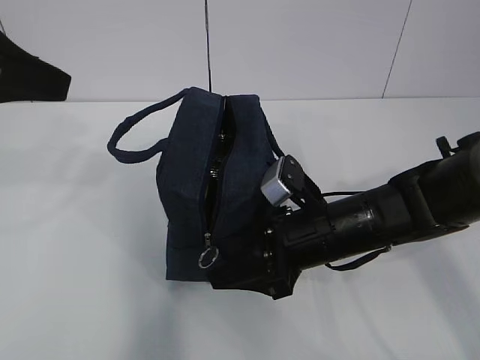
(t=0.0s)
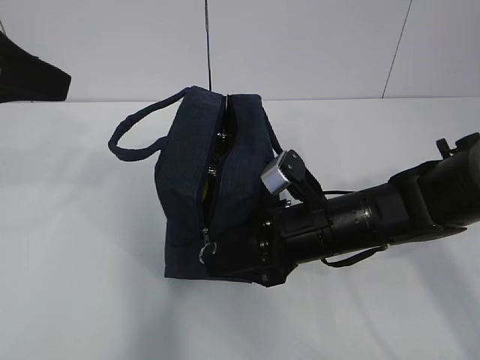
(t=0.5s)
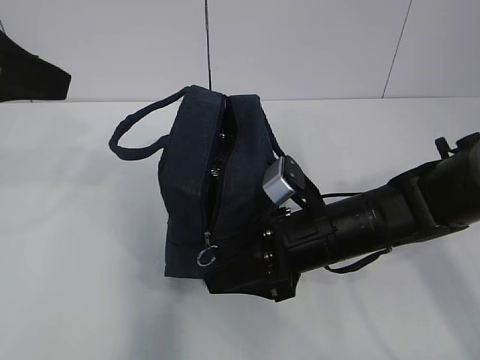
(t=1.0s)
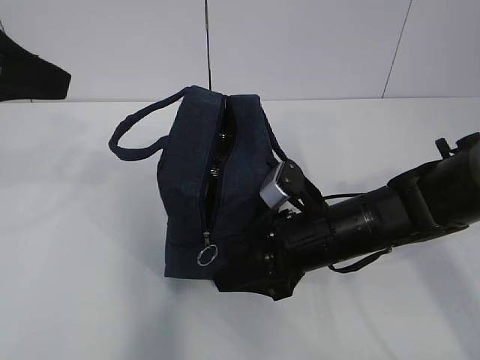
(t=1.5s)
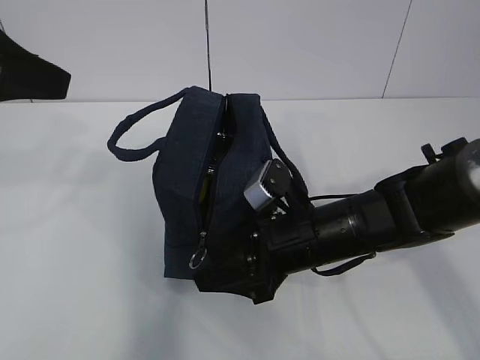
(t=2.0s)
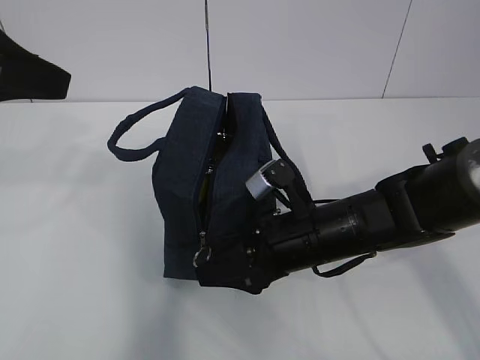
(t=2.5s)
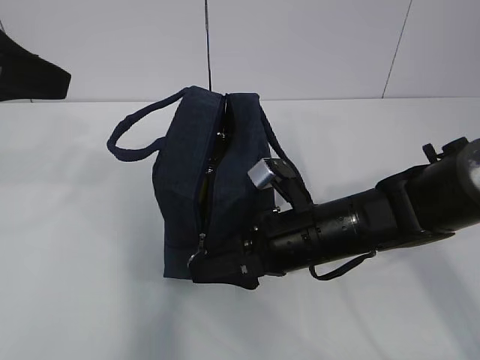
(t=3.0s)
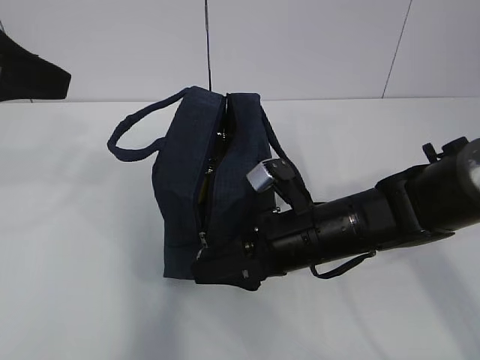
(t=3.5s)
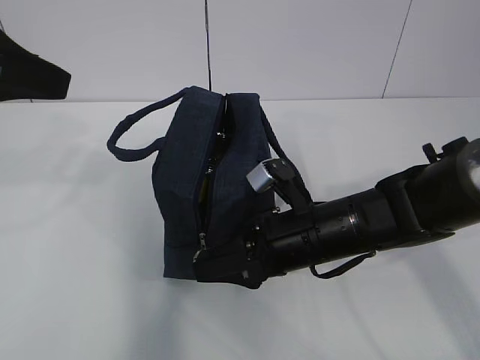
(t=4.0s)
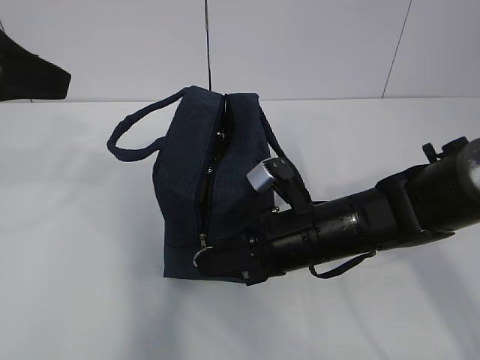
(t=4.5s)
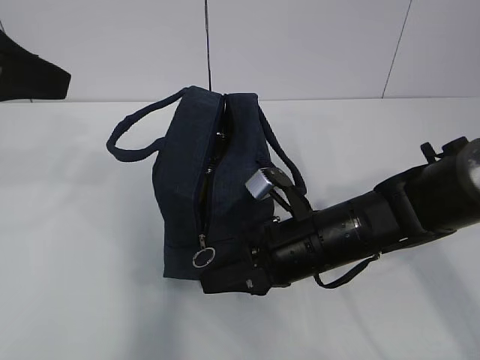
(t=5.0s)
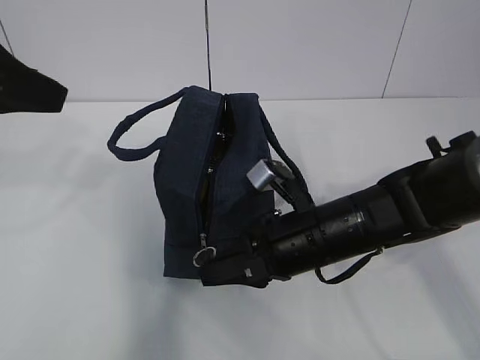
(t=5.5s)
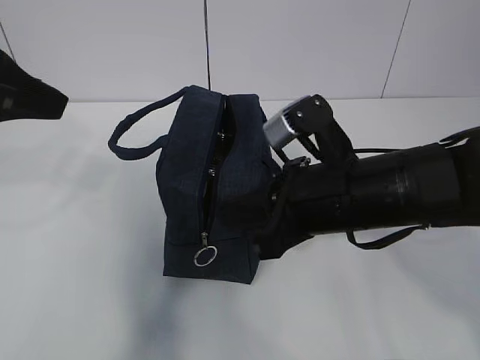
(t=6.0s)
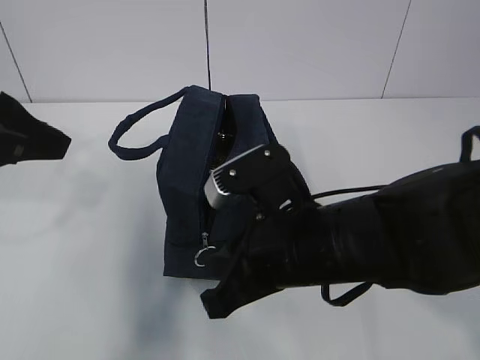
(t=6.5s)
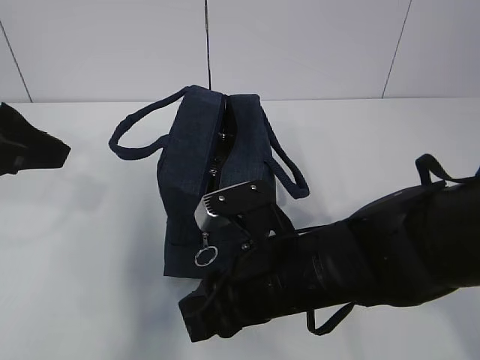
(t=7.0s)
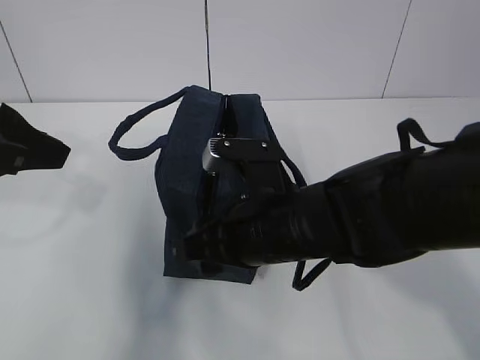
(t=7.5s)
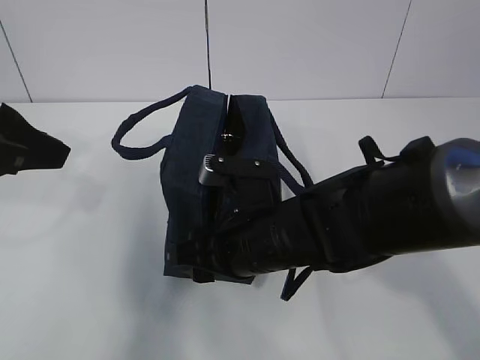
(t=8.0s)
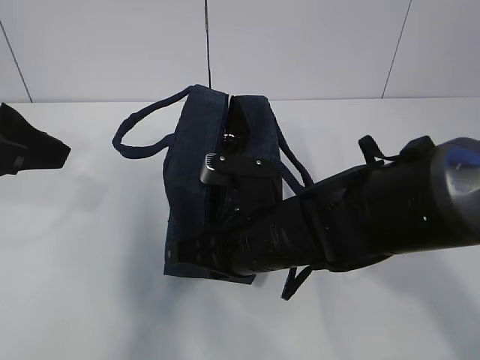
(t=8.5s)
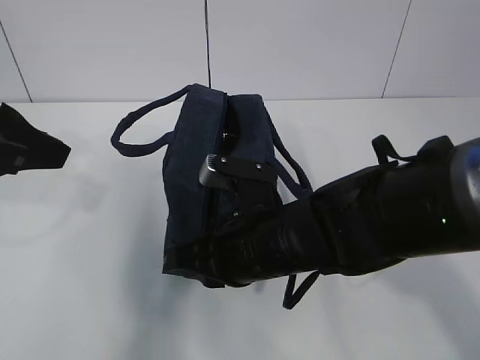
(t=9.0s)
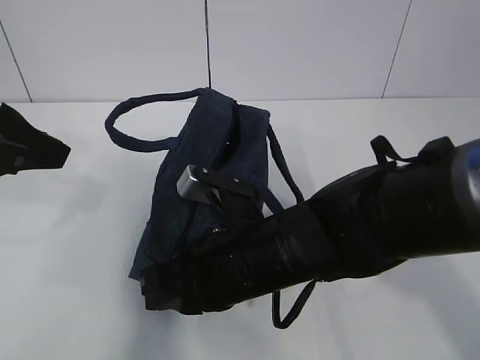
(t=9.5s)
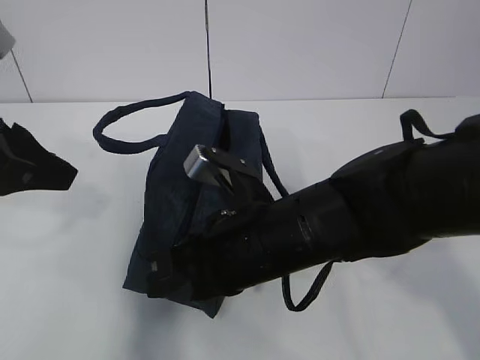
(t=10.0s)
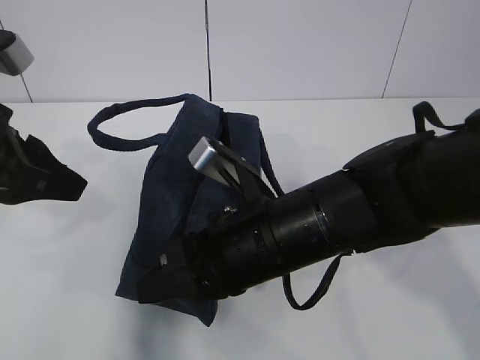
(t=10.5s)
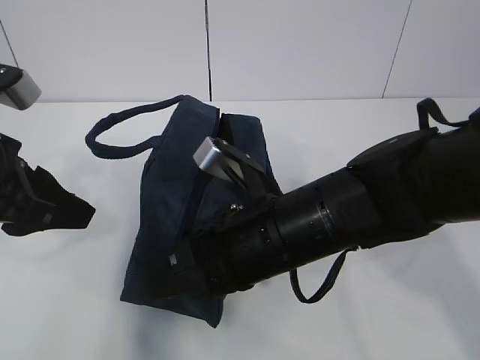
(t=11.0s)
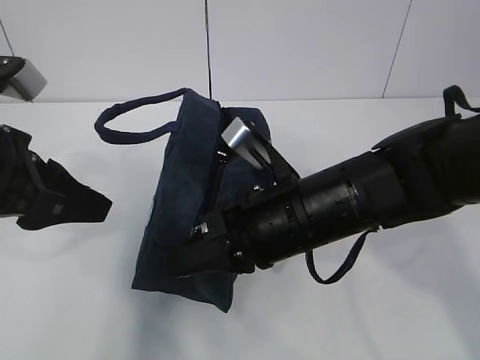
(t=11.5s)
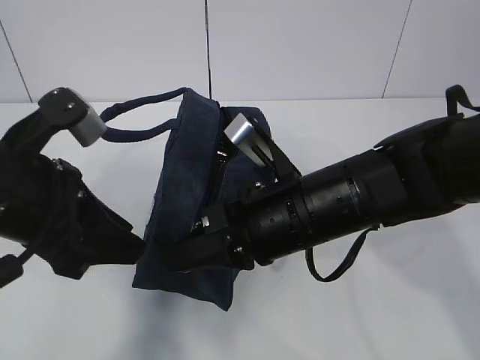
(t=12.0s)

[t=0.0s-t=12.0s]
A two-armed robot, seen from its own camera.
t=0.0s to t=4.0s: The grippers make only small movements.
t=4.0s to t=6.0s: The right gripper goes about 10 cm upward, and closes.
t=6.0s to t=8.0s: The right gripper goes roughly 10 cm to the left and downward, and opens its fingers.
t=8.0s to t=10.0s: The right gripper closes up.
t=10.0s to t=12.0s: The left gripper heads downward, covering approximately 5 cm.

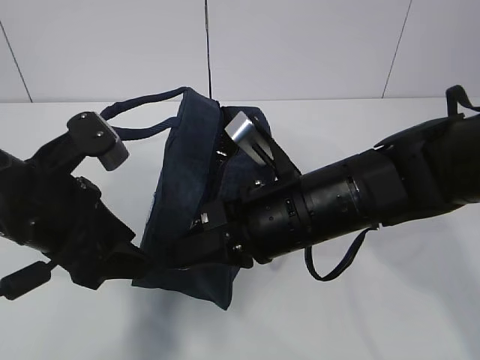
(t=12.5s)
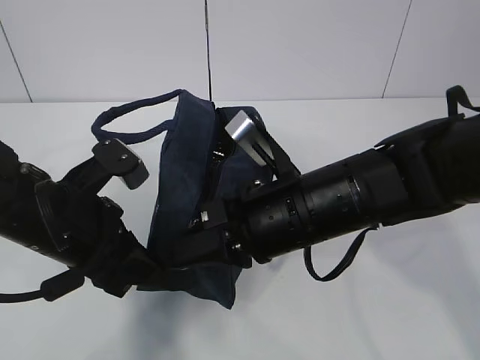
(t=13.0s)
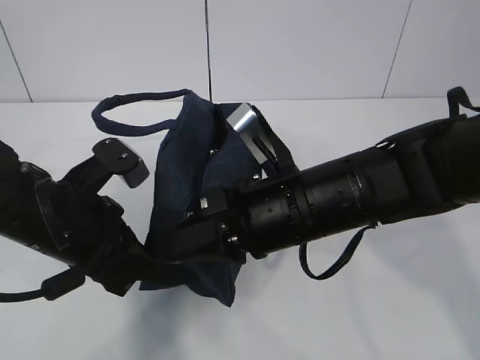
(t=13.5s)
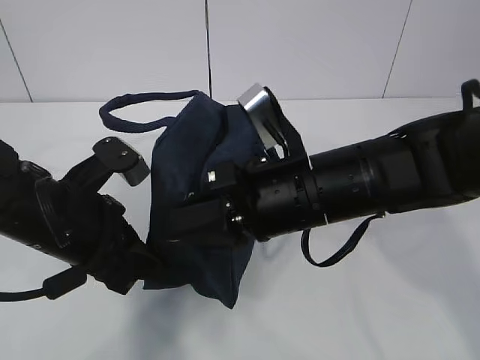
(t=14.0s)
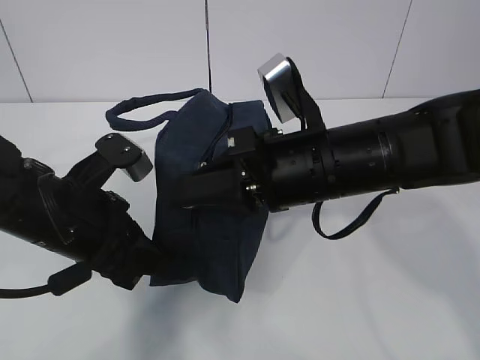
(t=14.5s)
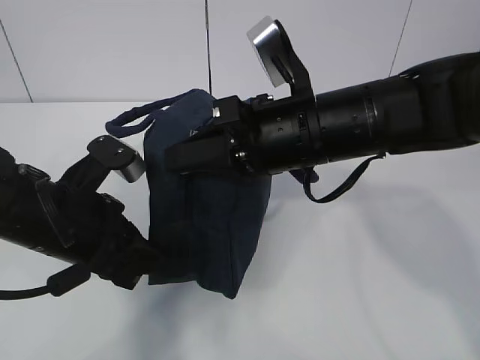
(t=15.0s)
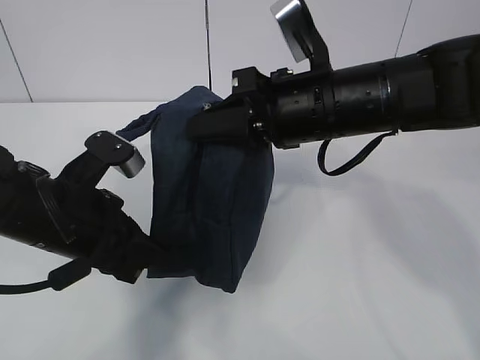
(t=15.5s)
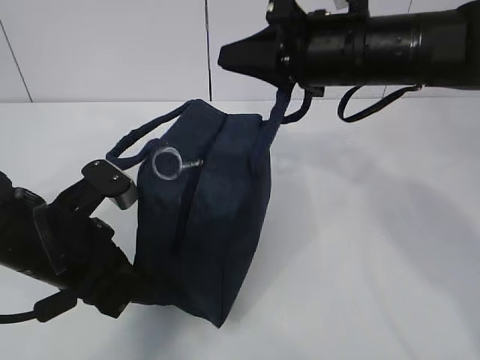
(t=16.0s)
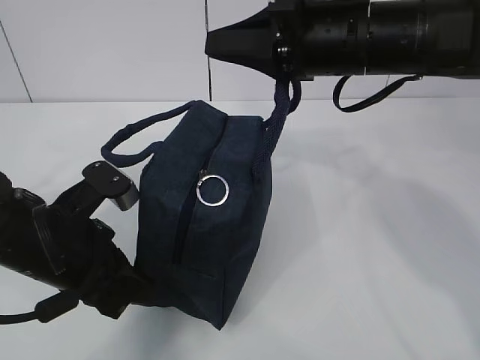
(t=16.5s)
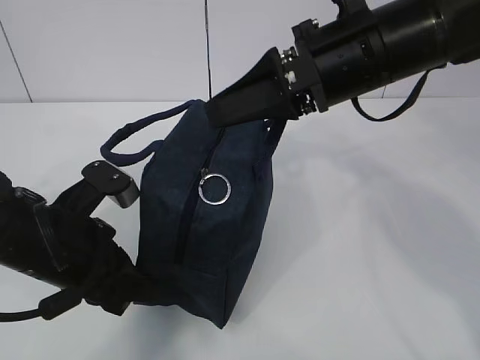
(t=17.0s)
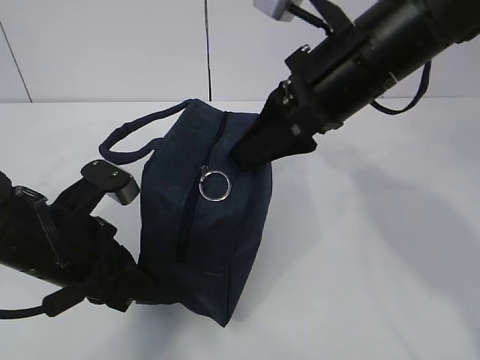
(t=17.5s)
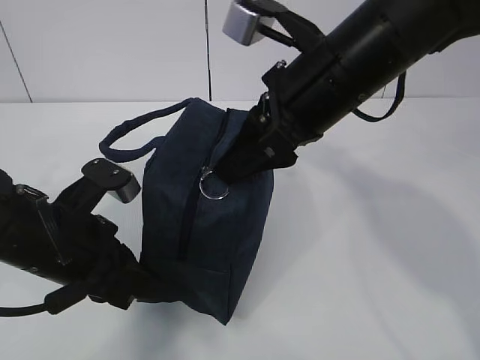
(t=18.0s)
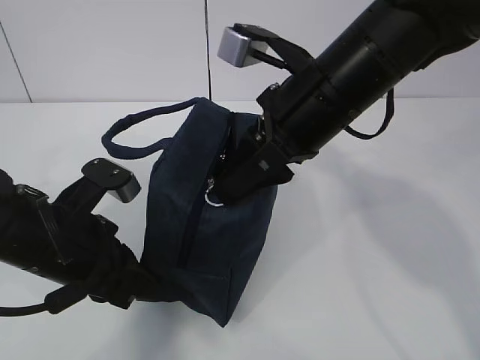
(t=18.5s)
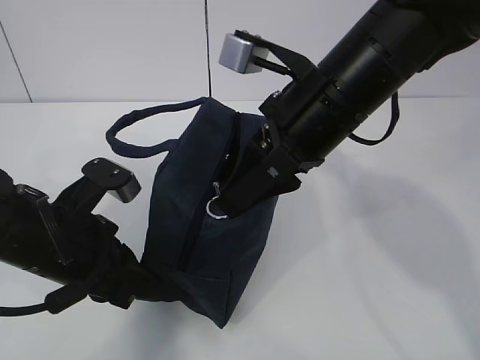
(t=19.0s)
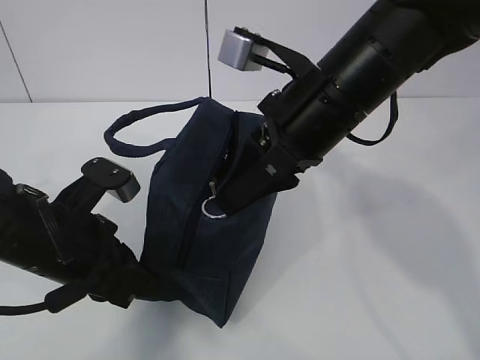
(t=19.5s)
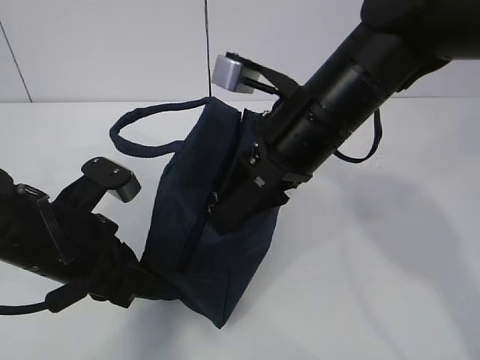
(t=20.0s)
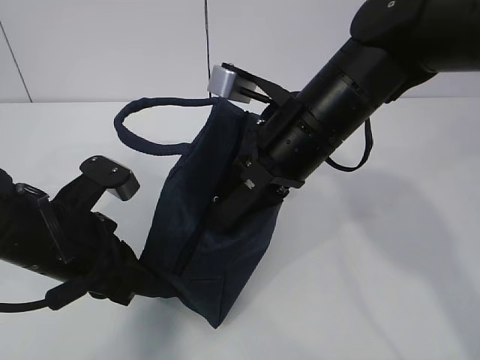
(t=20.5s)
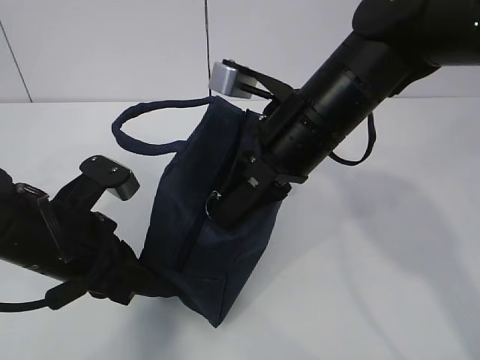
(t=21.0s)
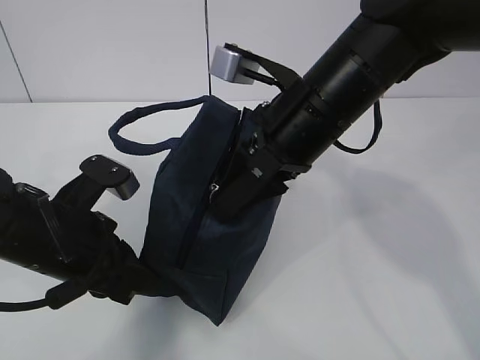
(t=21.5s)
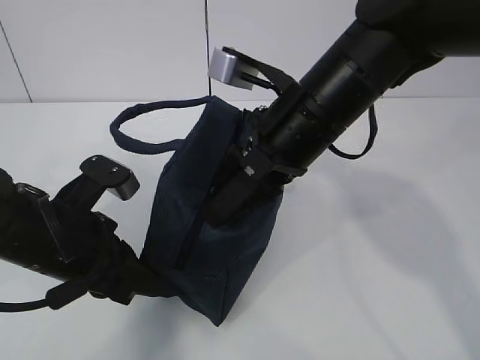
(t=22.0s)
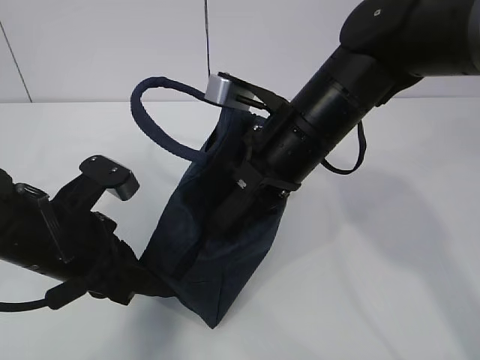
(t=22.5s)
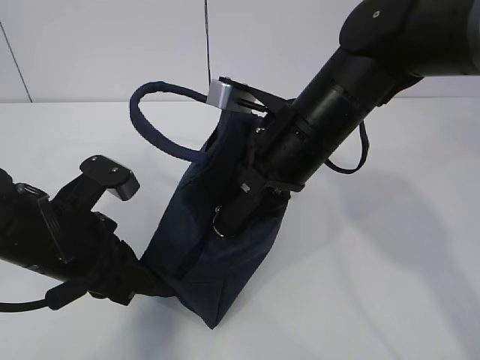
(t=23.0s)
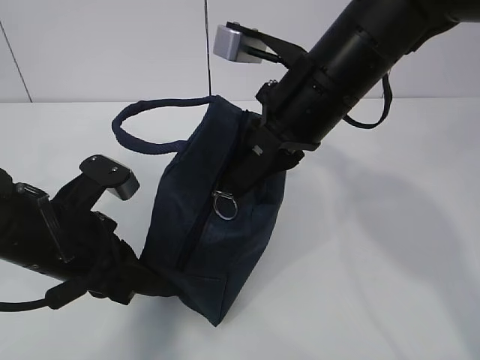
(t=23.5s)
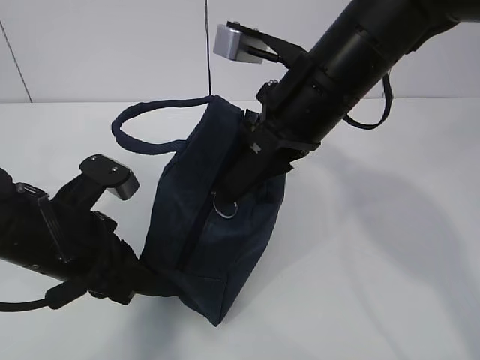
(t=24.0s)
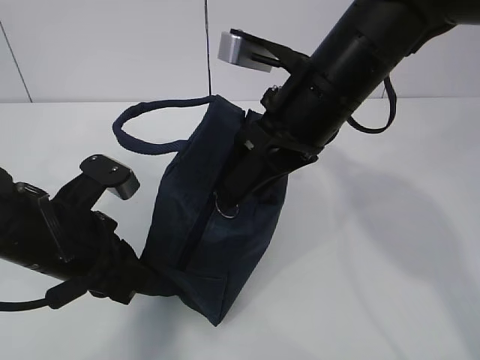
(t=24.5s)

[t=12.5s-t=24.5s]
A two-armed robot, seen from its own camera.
Step, t=12.5s to t=16.0s: Grab the lunch bag with your left hand.
Step, t=16.5s to t=21.5s: Pull the zipper with your right hand.
t=12.5s to t=14.5s: The left gripper closes up.
t=14.5s to t=16.5s: The right gripper shifts some 10 cm upward and forward.
t=16.5s to t=18.5s: The right gripper opens up.
t=18.5s to t=22.5s: The grippers make only small movements.
t=22.5s to t=24.5s: The right gripper closes, then reopens.

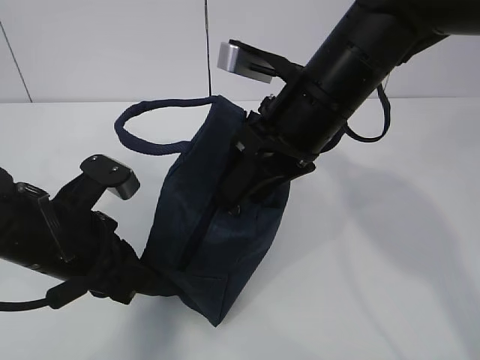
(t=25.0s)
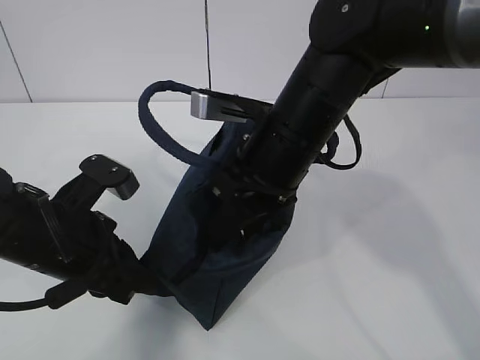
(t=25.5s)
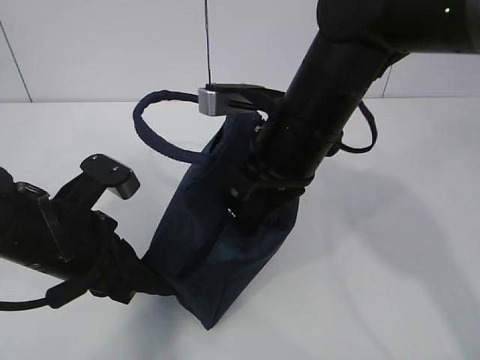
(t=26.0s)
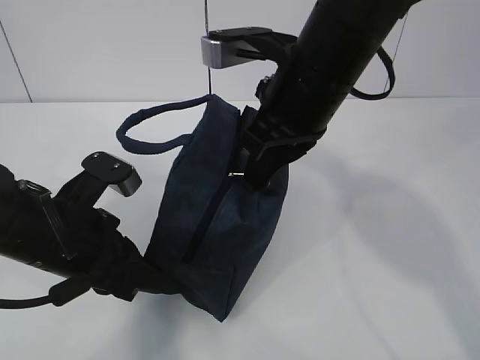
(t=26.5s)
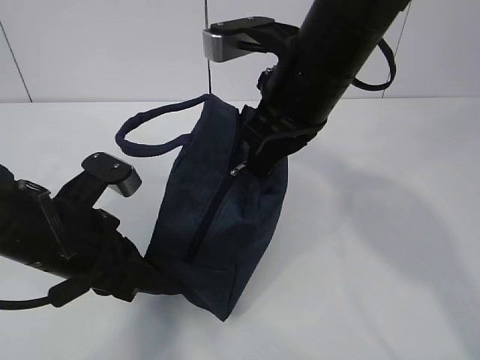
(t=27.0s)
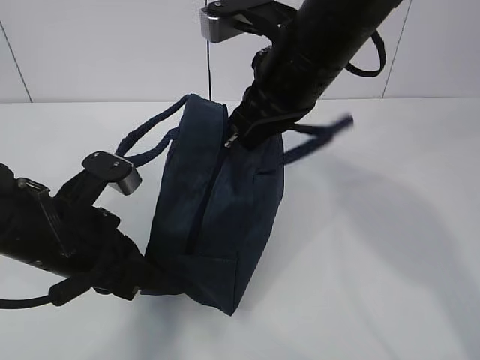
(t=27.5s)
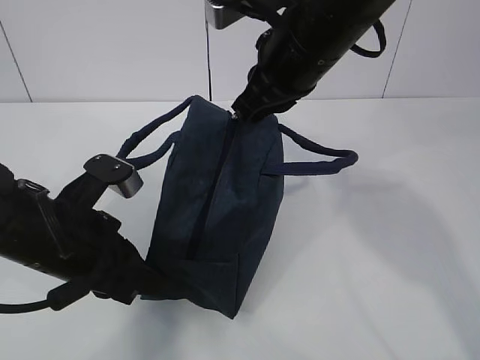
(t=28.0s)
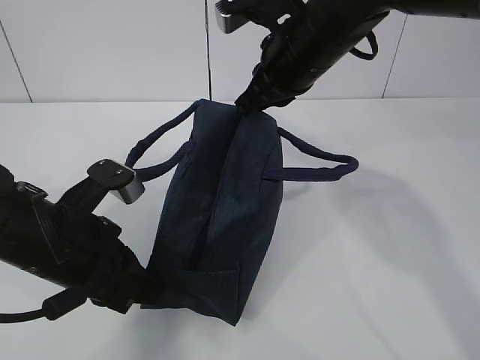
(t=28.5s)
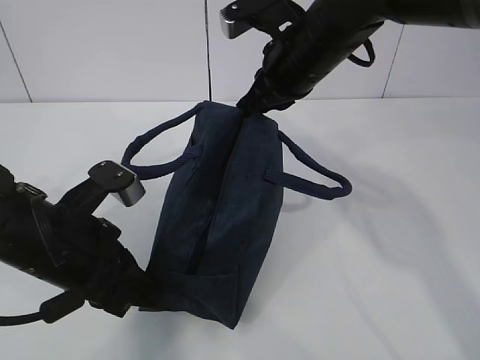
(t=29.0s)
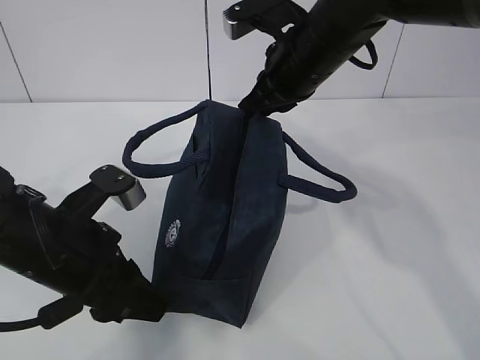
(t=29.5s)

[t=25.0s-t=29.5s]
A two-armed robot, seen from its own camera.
t=25.0s to t=27.0s: The right gripper closes.
t=27.0s to t=29.5s: The left gripper opens its fingers. Meanwhile the right gripper goes approximately 5 cm forward.
